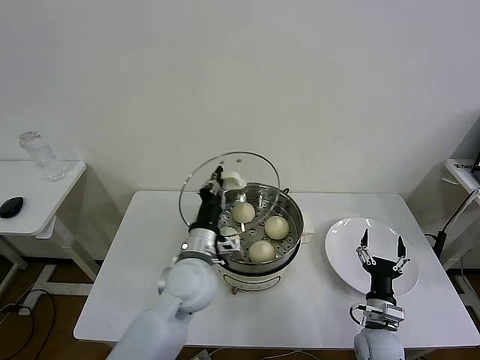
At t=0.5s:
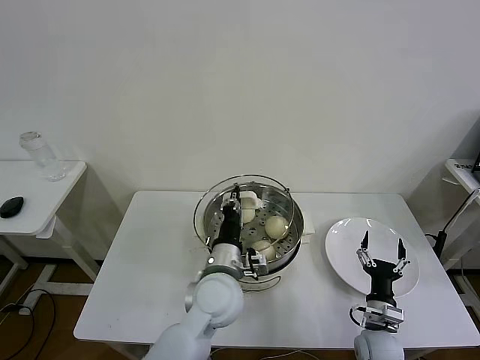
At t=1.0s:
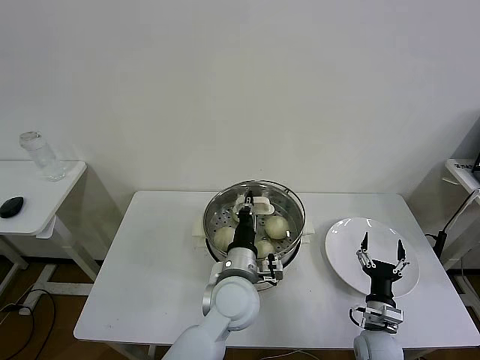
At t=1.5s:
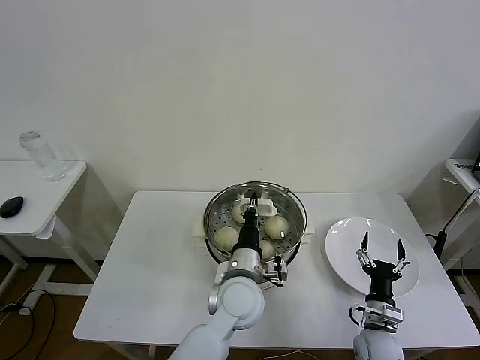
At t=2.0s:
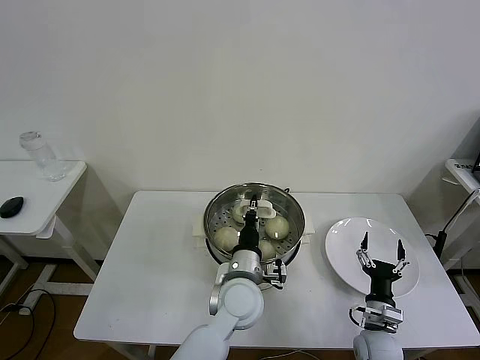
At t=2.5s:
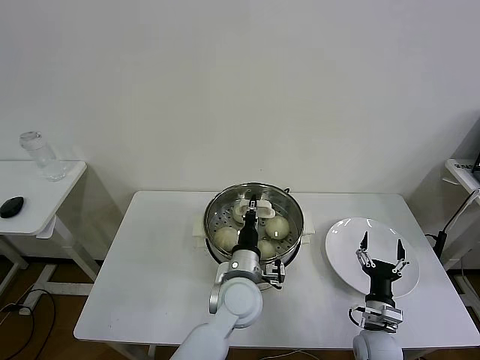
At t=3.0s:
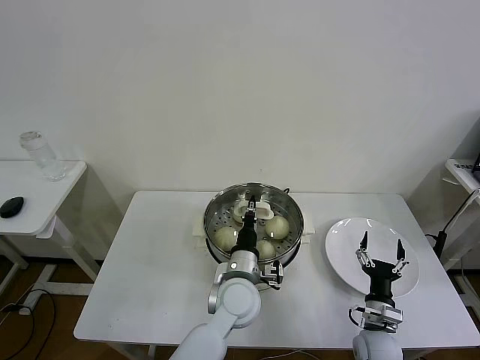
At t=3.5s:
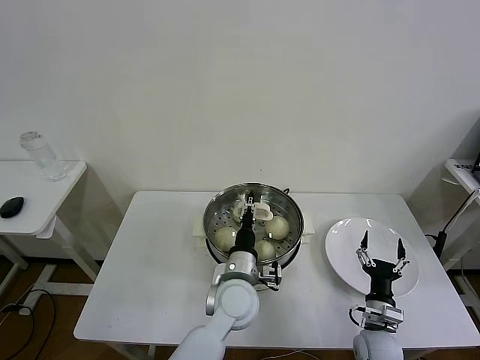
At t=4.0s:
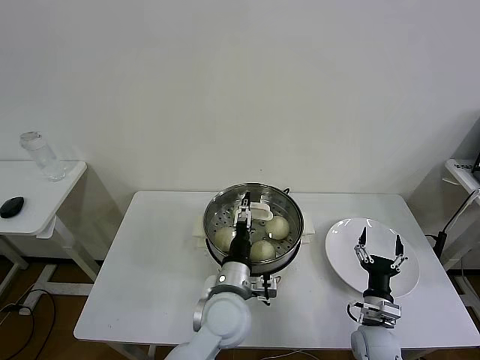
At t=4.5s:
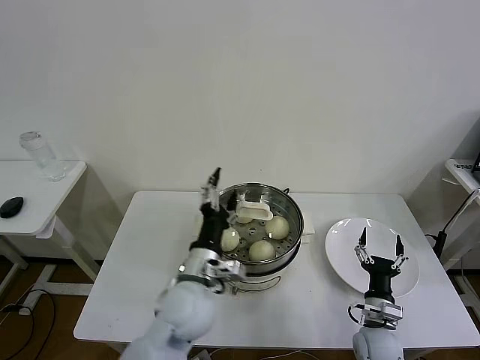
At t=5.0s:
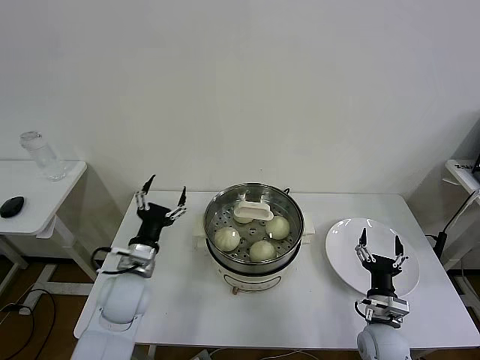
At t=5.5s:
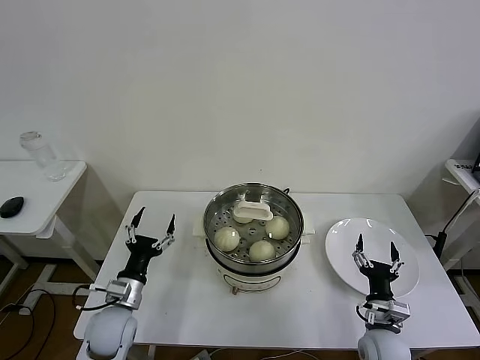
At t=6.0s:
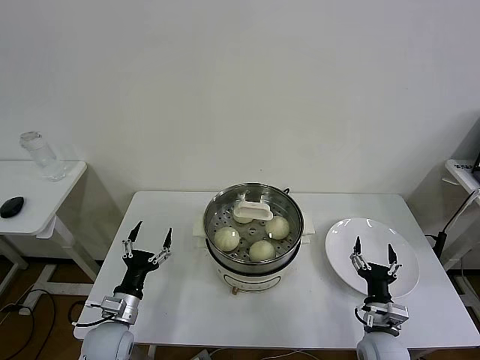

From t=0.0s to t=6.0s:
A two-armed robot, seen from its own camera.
Task of the whole recording: take steamed baozi put them in steamer then cover it.
Step, from t=0.0s to t=3.5s: Place the pot lid on the steamer with left gripper.
From t=0.0s to t=2.0s: The left gripper travels to the right and downward by approximately 10 cm.
From t=2.0s to t=4.0s: The left gripper opens up.
From t=4.0s to t=6.0s: The left gripper shifts approximately 25 cm to the left.

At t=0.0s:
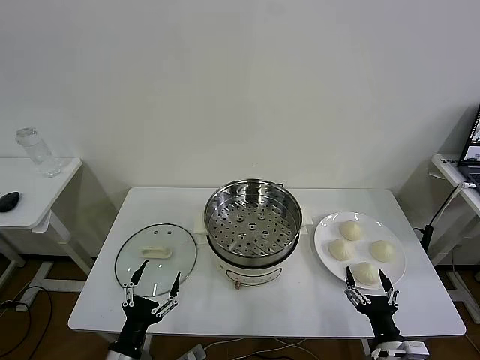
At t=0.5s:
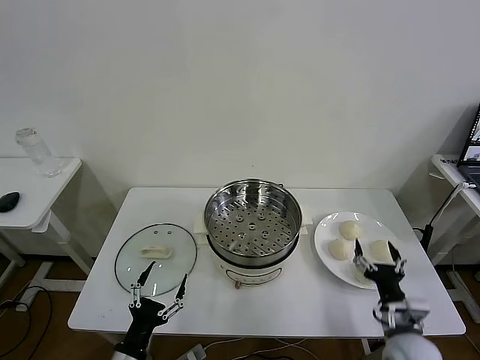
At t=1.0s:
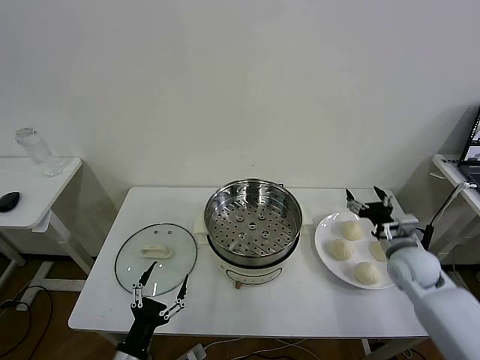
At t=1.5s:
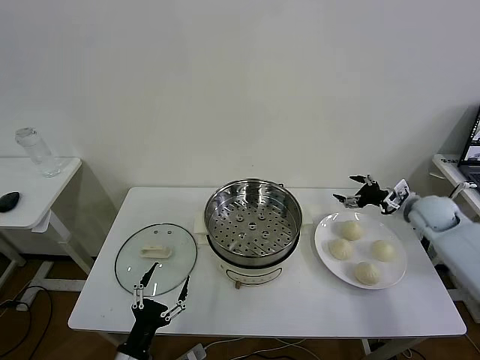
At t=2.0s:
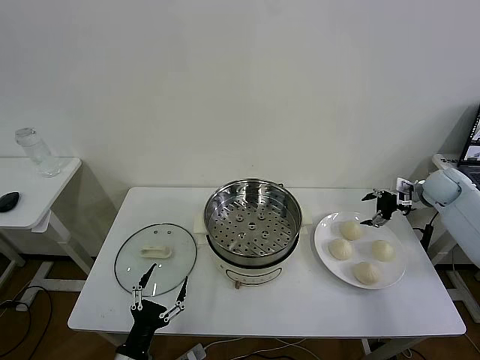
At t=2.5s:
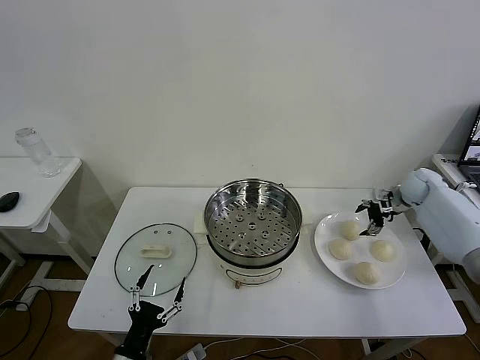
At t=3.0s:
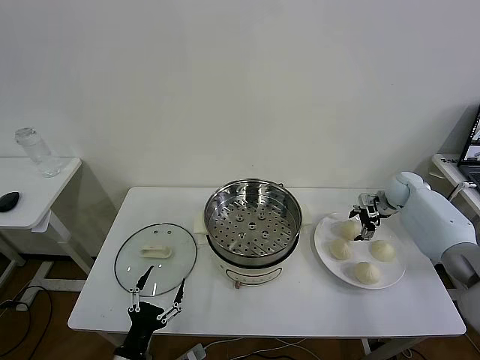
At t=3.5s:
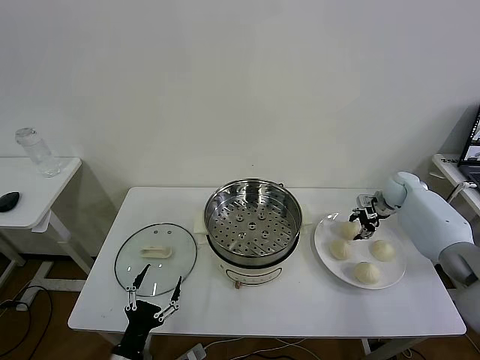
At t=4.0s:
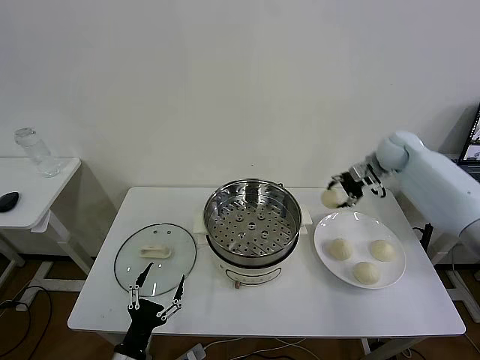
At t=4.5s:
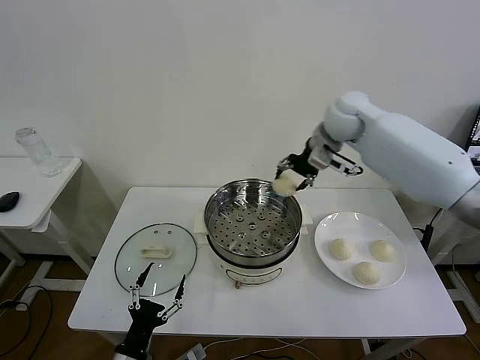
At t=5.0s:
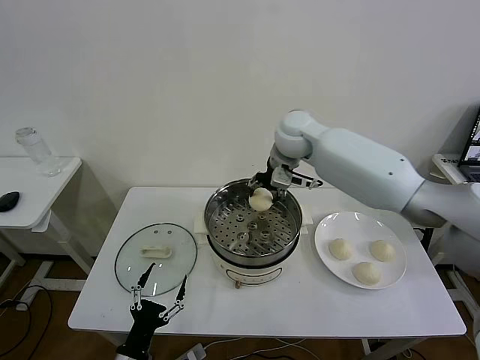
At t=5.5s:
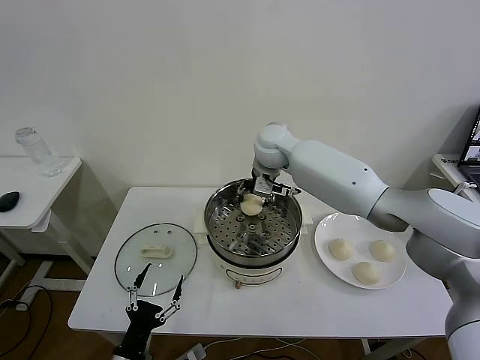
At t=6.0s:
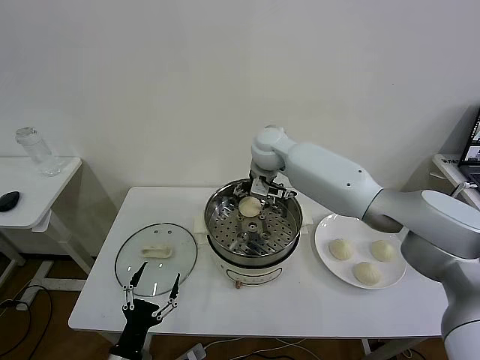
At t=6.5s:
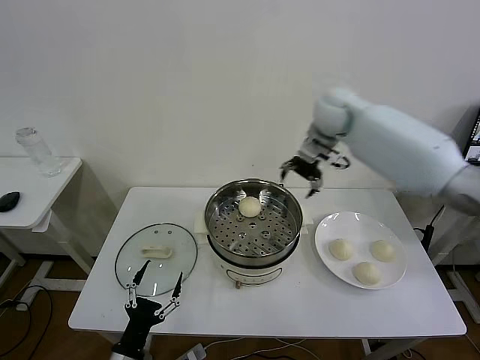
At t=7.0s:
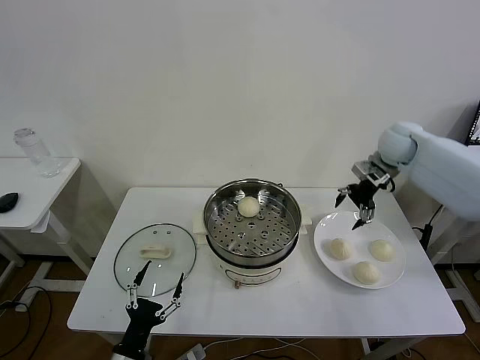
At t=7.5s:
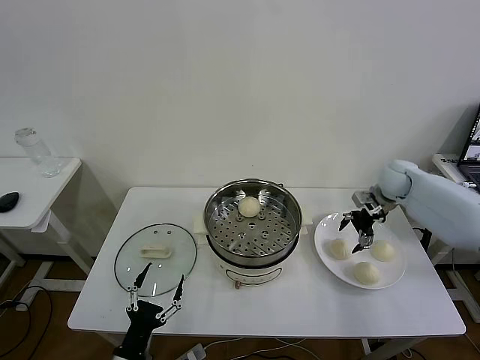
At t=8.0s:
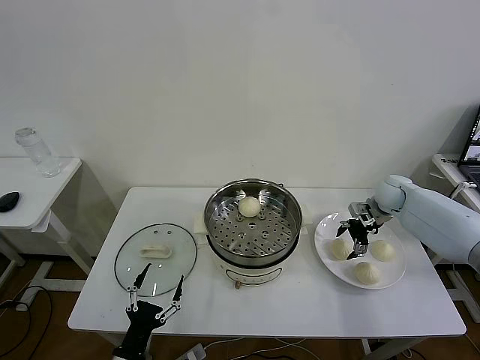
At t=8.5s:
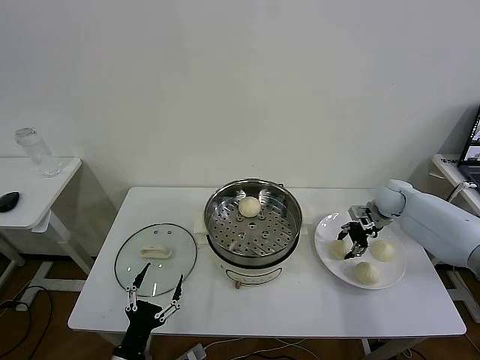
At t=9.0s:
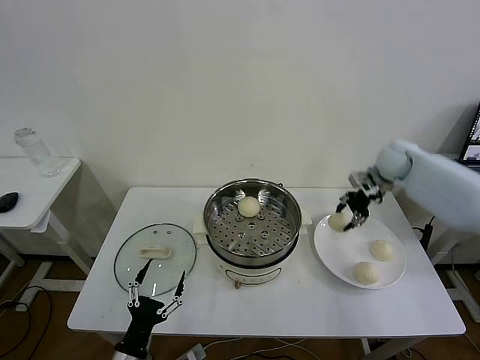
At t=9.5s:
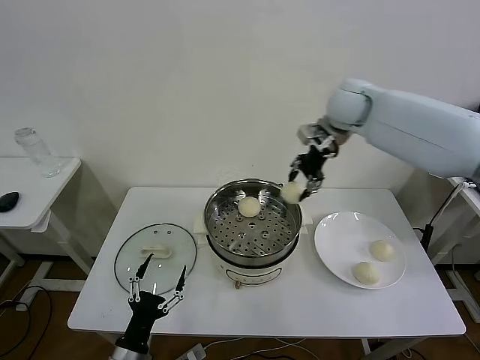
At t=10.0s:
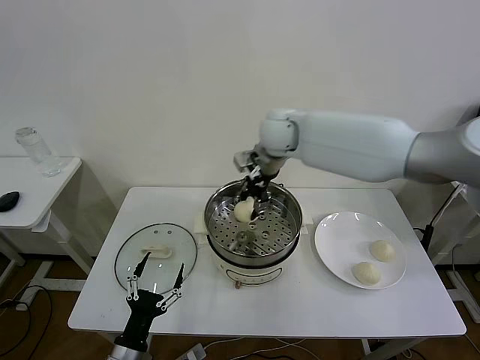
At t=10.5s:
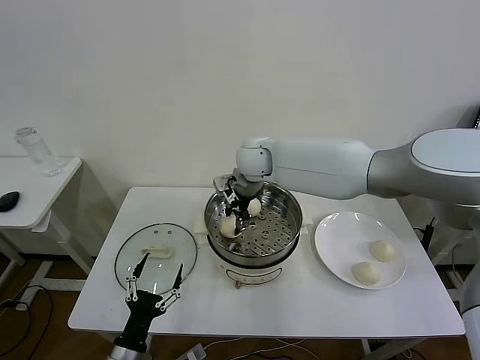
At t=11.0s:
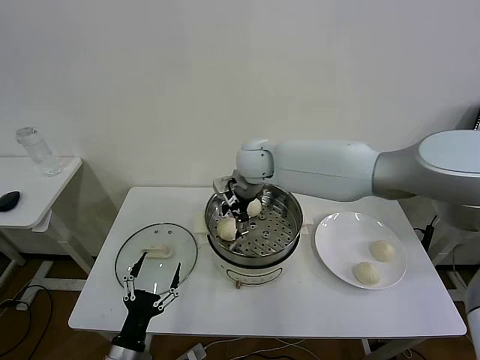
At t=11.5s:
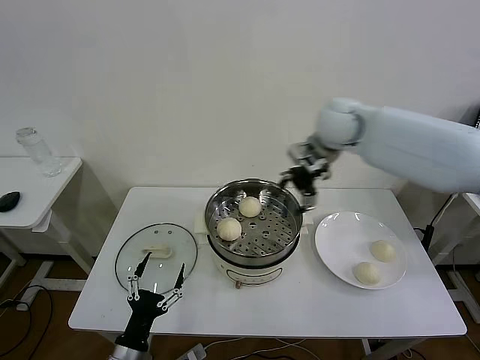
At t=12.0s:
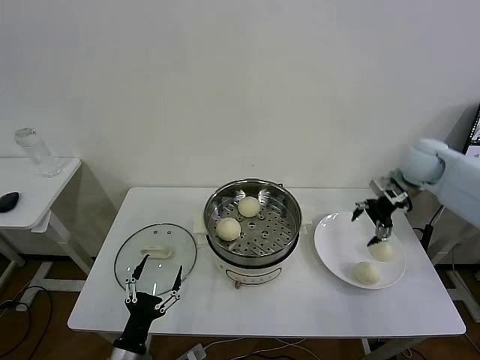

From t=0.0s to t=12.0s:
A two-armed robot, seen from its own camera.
Task of the whole recording: take steamed baozi put them in steamer then cover it.
Step, from t=0.0s to t=3.0s: Grasp the baozi in the plate with right gripper.
Step, from t=4.0s to t=6.0s: Place the baozi on the steamer with right gripper.
Step, from t=6.5s to t=8.5s: Grasp the baozi in the plate with right gripper.
Step, from t=9.0s to t=11.0s: Place the baozi on the steamer with right gripper.
From t=2.0s to t=4.0s: The right gripper goes approximately 20 cm to the left and upward, and closes.
From t=4.0s to t=6.0s: The right gripper goes some 25 cm to the left, and opens its fingers.
From t=6.0s to t=8.0s: The right gripper is displaced to the right and downward by about 35 cm.
From t=8.0s to t=10.0s: The right gripper moves to the left and upward, some 40 cm, and closes.
From t=10.0s to t=12.0s: The right gripper goes some 35 cm to the right, and opens up.

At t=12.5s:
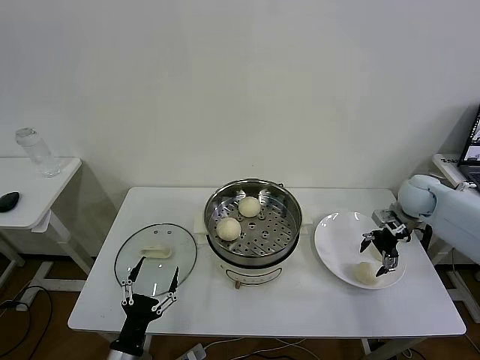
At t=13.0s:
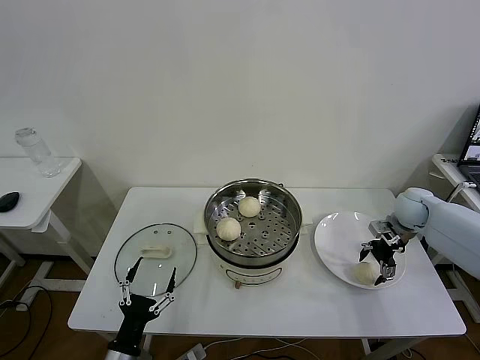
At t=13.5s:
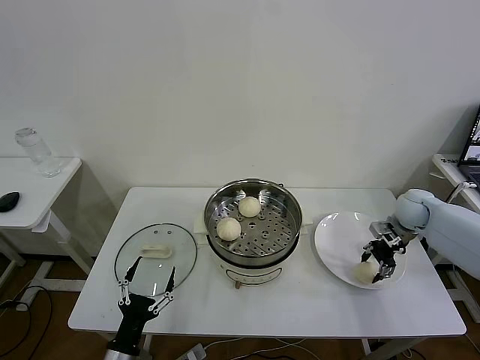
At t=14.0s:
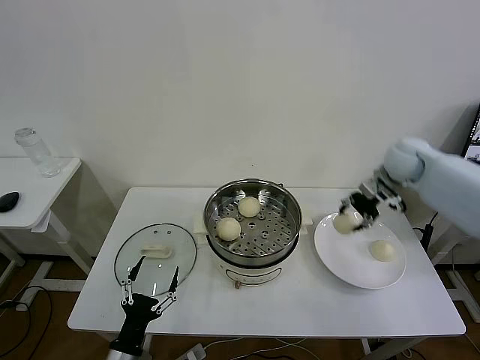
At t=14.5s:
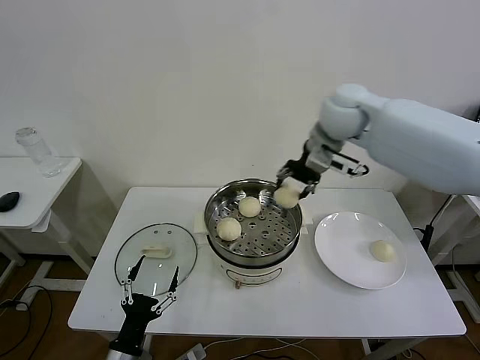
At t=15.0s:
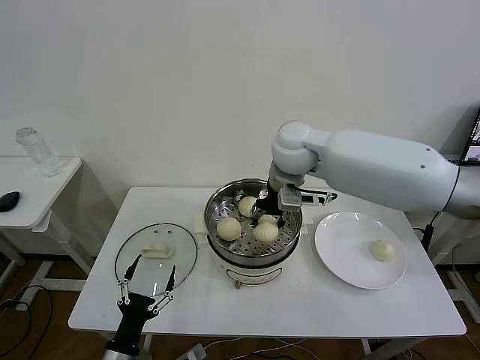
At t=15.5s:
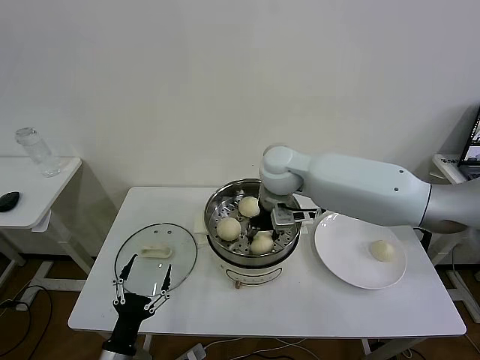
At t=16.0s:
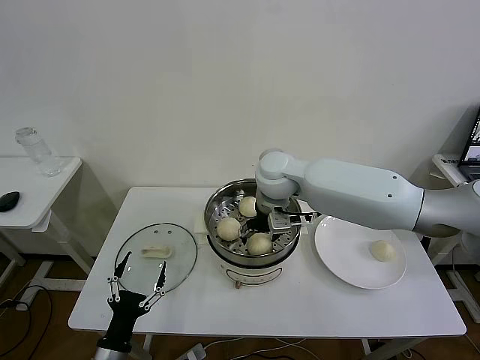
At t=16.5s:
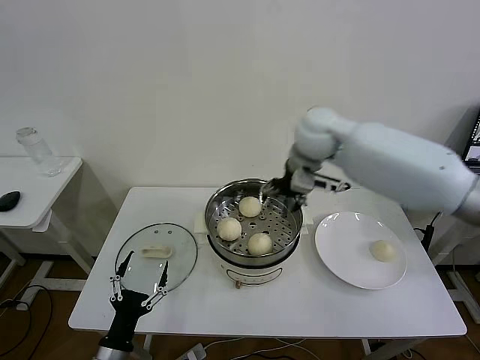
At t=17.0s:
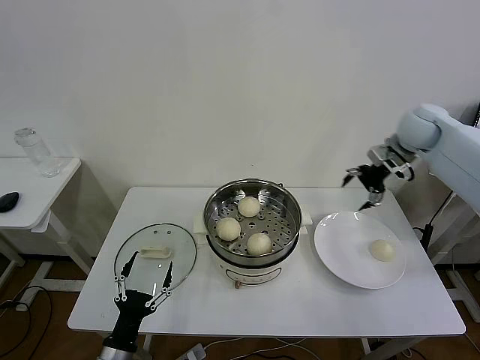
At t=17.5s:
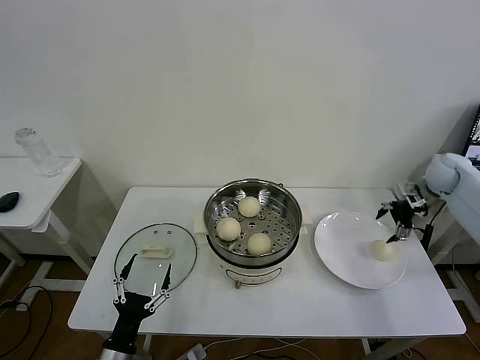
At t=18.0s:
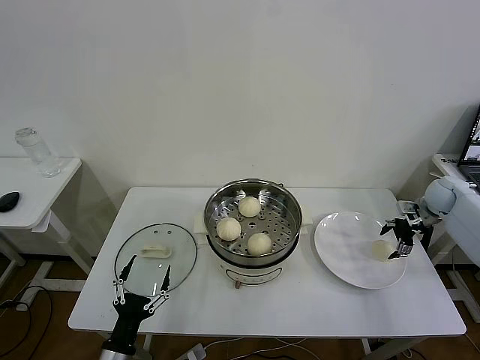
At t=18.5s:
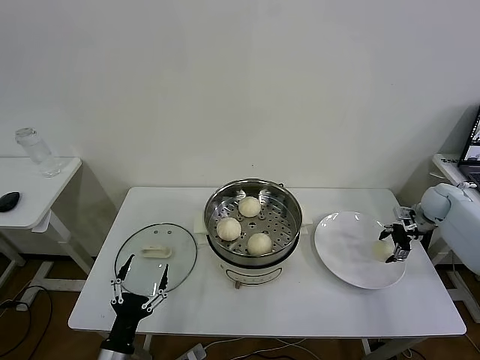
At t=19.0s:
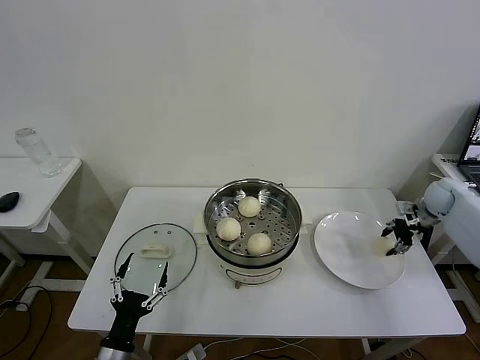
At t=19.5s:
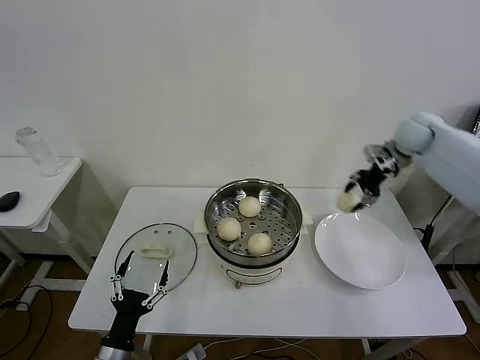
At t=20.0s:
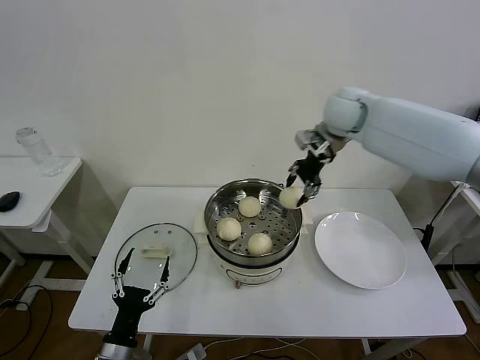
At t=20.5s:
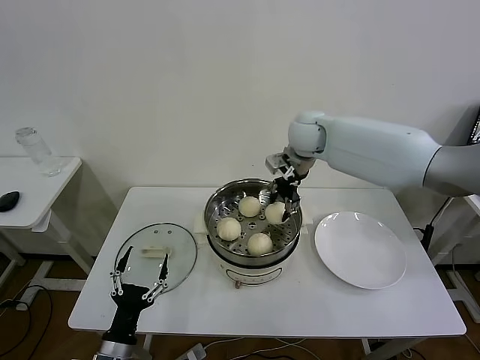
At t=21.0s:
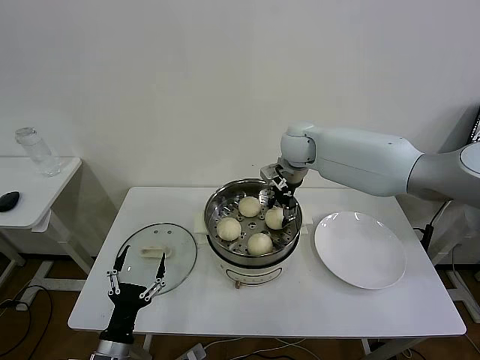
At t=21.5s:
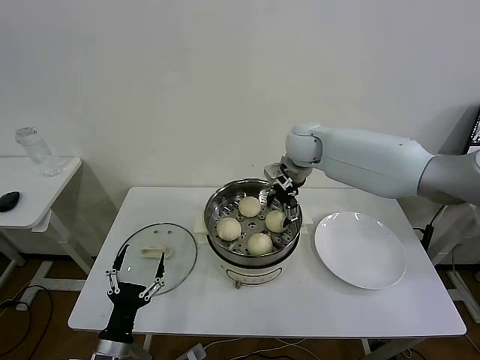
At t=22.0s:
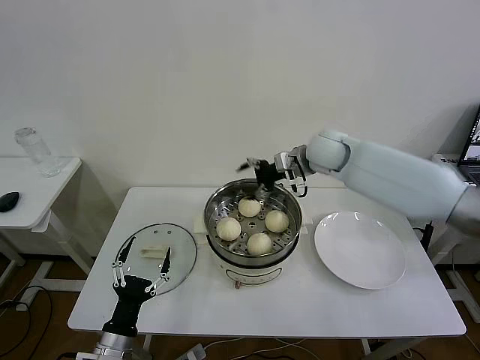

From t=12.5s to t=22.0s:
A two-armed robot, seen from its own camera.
Task of the whole recording: take steamed baozi put them in steamer then cover it.
Step, from t=14.0s to t=16.0s: Place the baozi on the steamer with right gripper.
Step, from t=16.5s to t=18.5s: Grasp the baozi in the plate with right gripper.
Step, from t=19.0s to t=21.5s: Place the baozi on the steamer with right gripper.
From t=12.5s to t=14.5s: The right gripper travels to the left and upward by about 35 cm, and closes its fingers.
From t=14.5s to t=16.5s: The right gripper goes downward and returns, about 10 cm each way, and opens.
From t=16.5s to t=18.0s: The right gripper shifts about 40 cm to the right and downward.
From t=18.0s to t=20.0s: The right gripper heads to the left and upward, covering some 35 cm, and closes up.
From t=20.0s to t=22.0s: The right gripper is displaced downward by roughly 10 cm, and opens its fingers.
